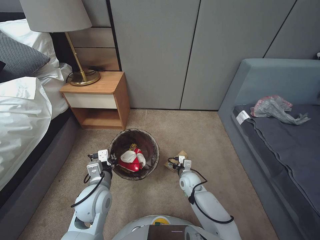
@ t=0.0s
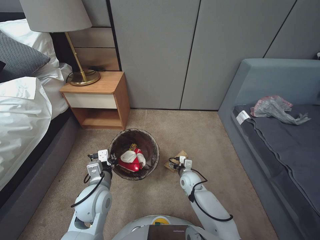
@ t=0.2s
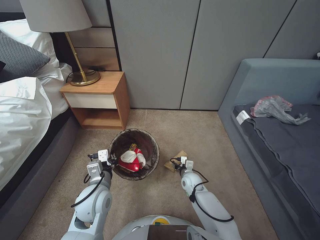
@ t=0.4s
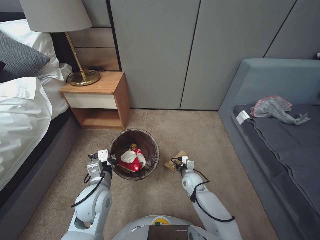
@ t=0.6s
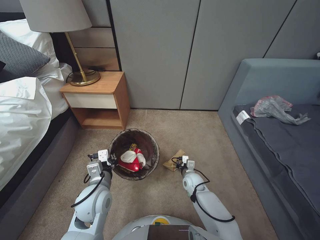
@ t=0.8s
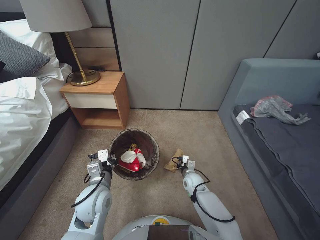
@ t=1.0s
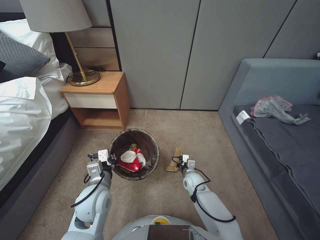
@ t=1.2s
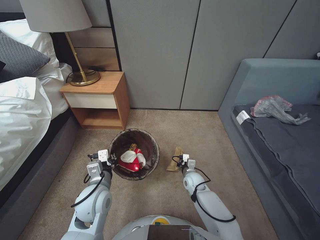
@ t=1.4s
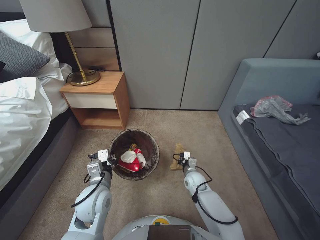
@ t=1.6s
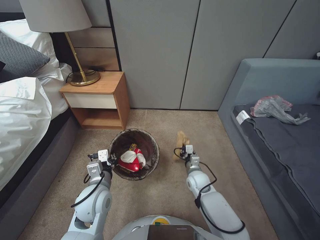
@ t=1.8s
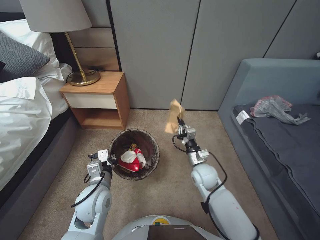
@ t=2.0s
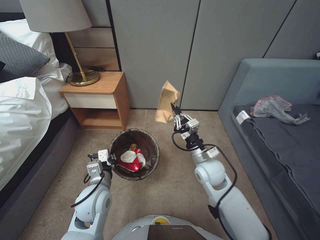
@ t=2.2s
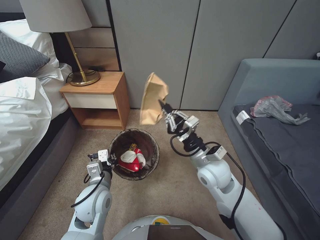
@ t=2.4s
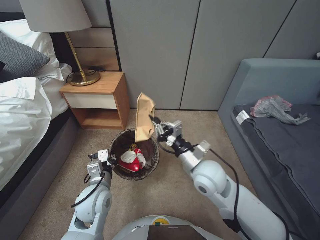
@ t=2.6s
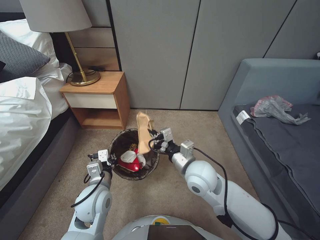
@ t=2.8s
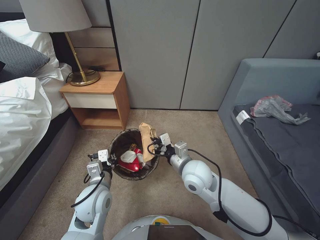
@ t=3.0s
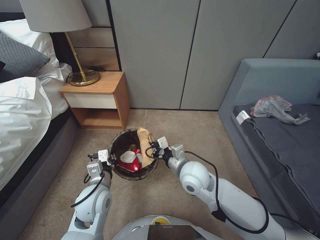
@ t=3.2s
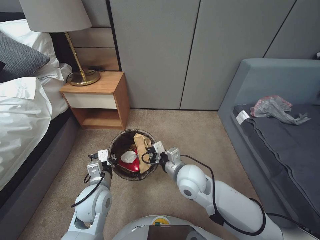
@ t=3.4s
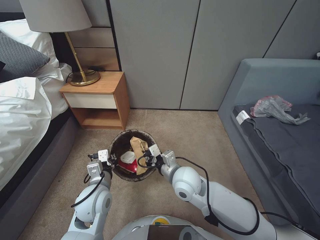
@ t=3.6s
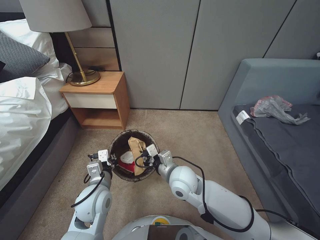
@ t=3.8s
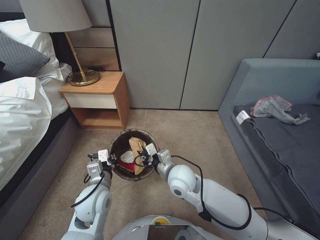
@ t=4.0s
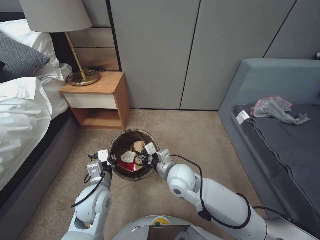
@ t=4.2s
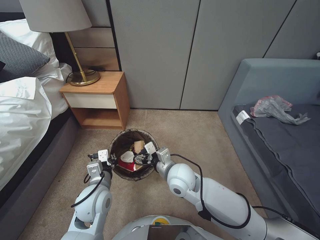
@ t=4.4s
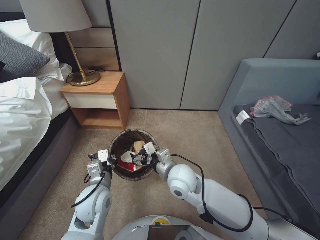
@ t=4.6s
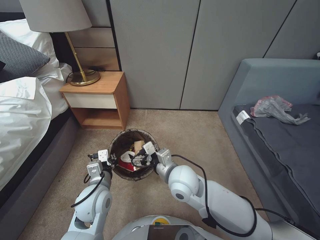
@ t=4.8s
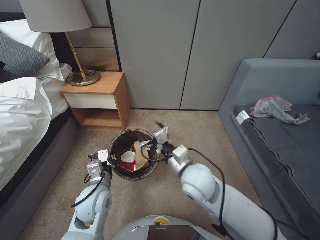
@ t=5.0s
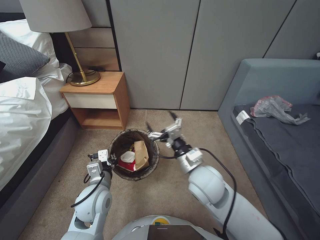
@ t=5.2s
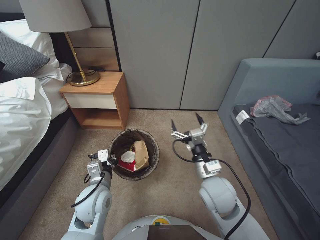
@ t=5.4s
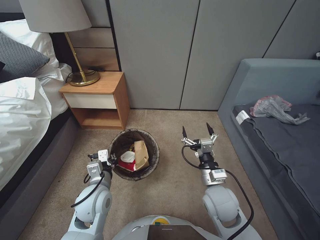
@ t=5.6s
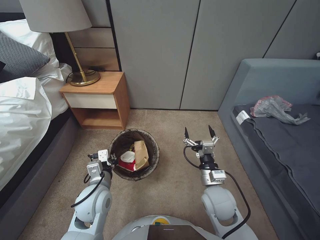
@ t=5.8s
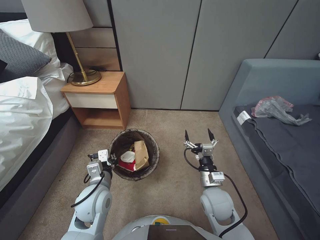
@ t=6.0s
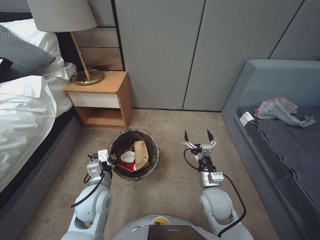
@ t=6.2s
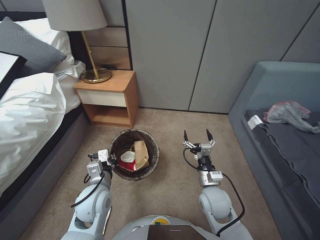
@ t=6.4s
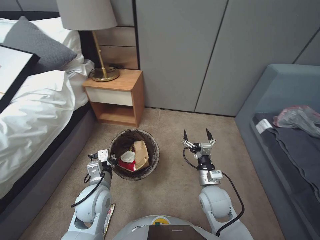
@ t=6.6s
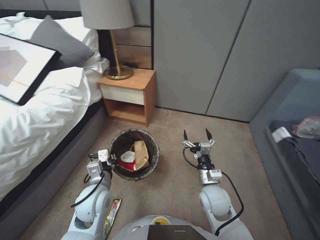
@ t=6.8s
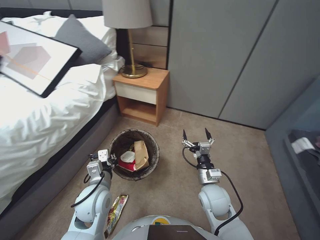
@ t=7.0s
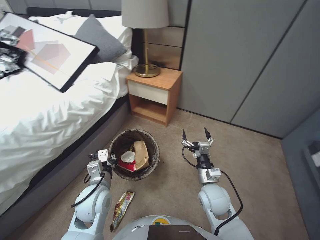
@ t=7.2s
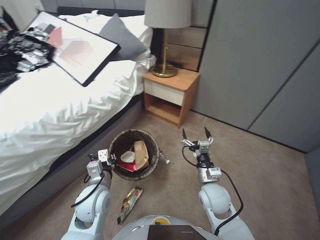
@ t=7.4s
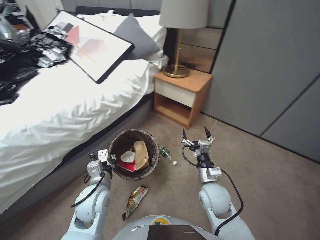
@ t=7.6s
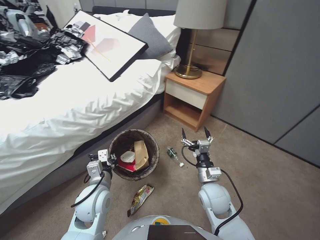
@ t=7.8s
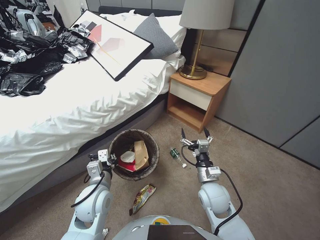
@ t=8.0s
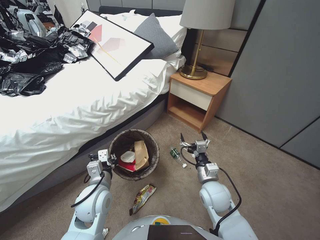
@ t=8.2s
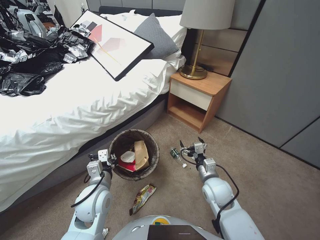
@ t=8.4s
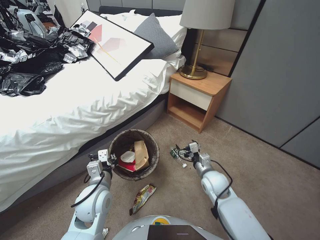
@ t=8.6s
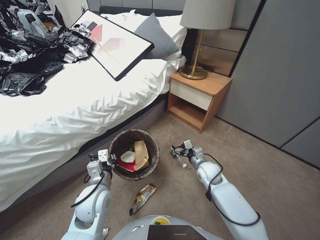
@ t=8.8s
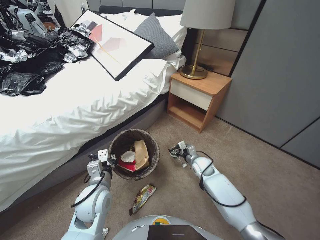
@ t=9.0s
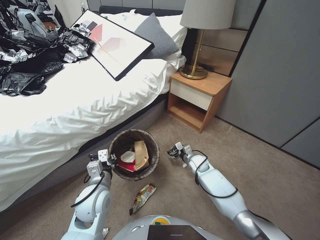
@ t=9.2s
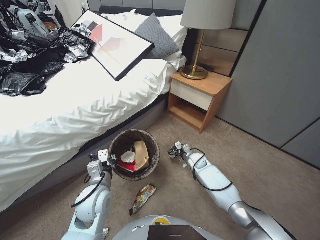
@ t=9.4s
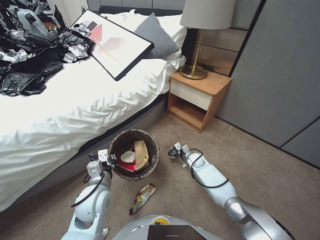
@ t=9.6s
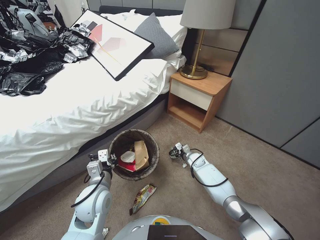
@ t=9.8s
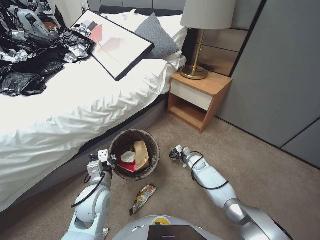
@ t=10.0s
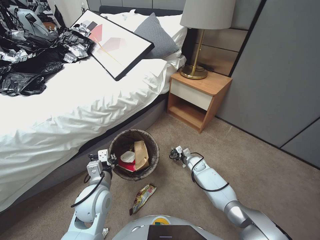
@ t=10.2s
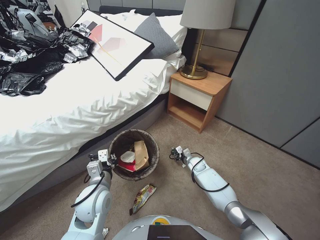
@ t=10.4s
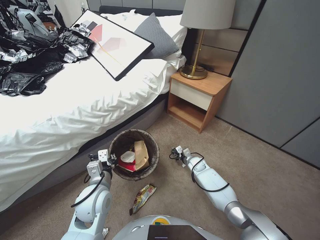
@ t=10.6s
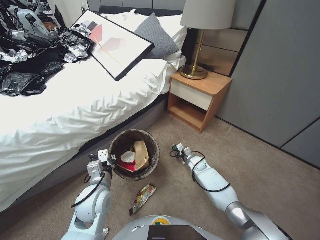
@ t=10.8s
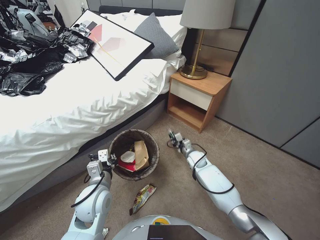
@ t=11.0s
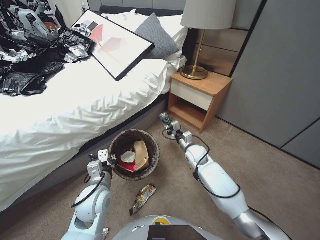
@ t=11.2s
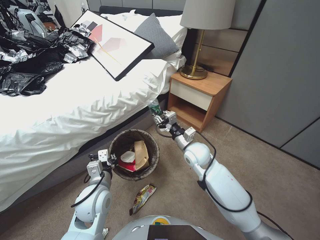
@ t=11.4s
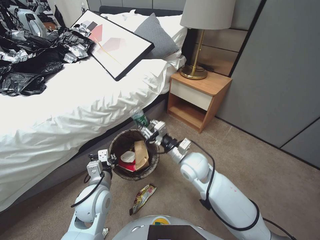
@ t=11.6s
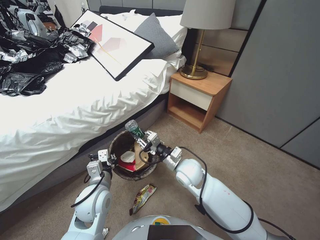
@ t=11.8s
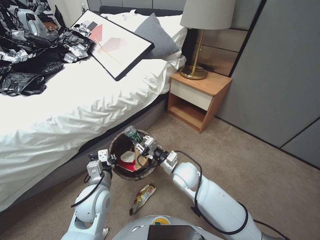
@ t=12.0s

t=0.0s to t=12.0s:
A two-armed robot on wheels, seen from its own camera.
Task of the whole recording: Pick up the trash bin, then pick up the garbage from the floor and place it into the trash bin.
t=0.0s to t=1.6s: The right gripper closes its fingers.
t=1.6s to t=3.0s: The right gripper is displaced upward by approximately 25 cm.
t=3.0s to t=4.4s: The right gripper moves some 5 cm, and opens up.
t=4.4s to t=6.0s: The right gripper heads to the right and backward, covering about 15 cm, and opens up.
t=7.6s to t=9.0s: The right gripper heads forward and downward, covering roughly 15 cm.
t=9.0s to t=10.4s: The right gripper goes some 10 cm downward and forward, and closes its fingers.
t=10.4s to t=12.0s: The right gripper is displaced upward, to the left and backward by approximately 25 cm.

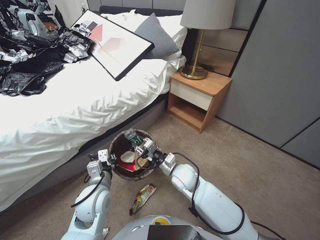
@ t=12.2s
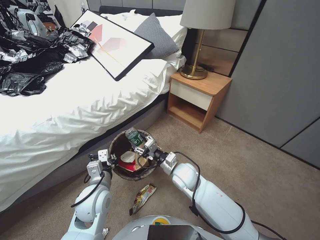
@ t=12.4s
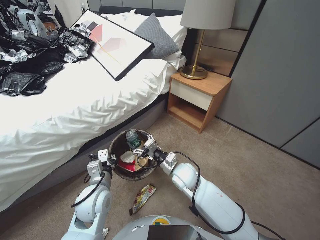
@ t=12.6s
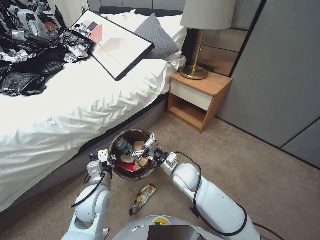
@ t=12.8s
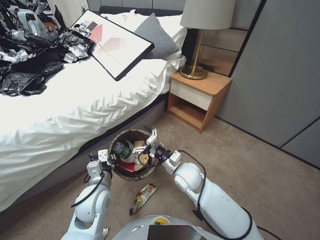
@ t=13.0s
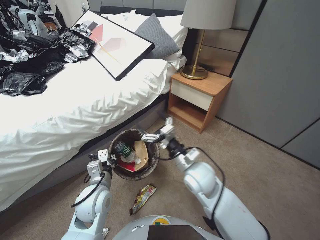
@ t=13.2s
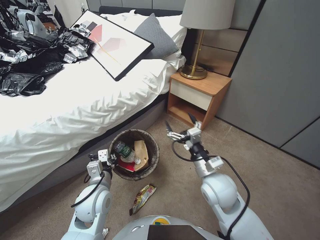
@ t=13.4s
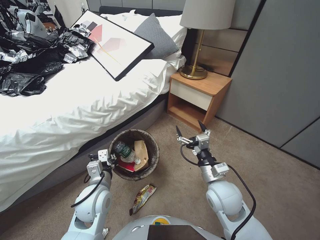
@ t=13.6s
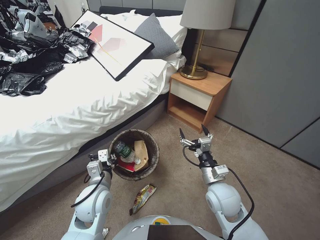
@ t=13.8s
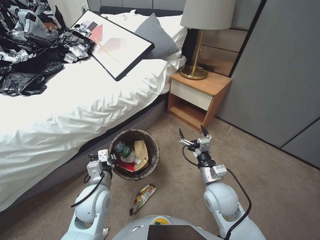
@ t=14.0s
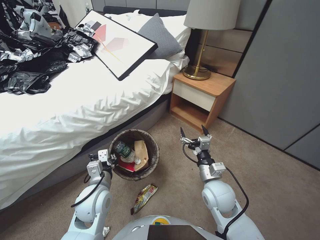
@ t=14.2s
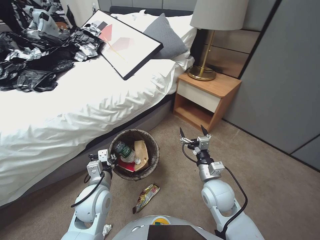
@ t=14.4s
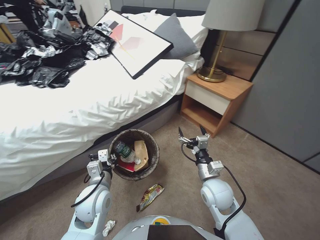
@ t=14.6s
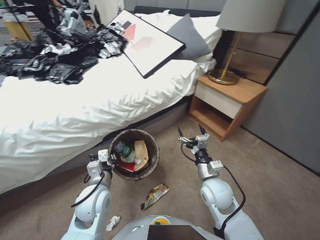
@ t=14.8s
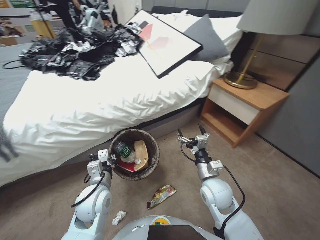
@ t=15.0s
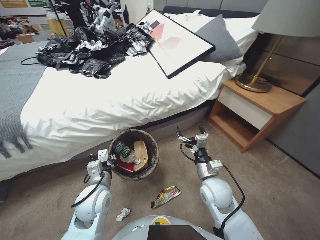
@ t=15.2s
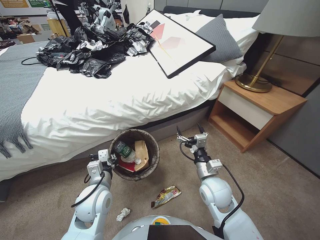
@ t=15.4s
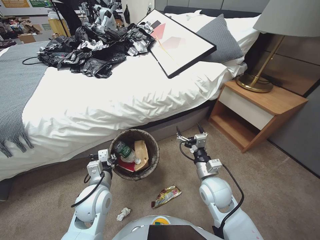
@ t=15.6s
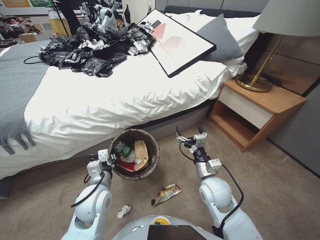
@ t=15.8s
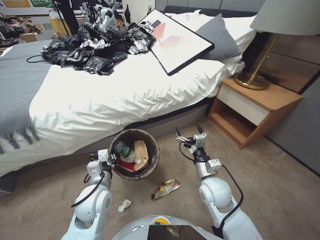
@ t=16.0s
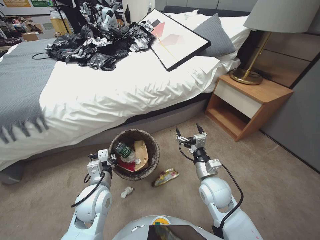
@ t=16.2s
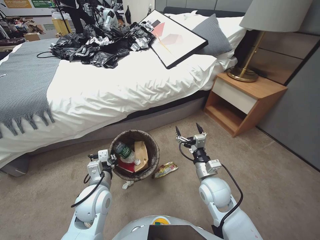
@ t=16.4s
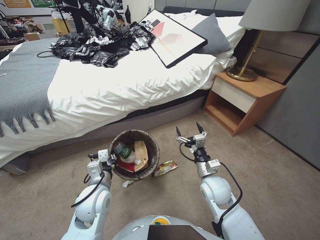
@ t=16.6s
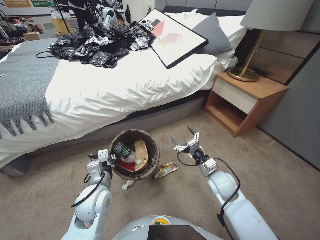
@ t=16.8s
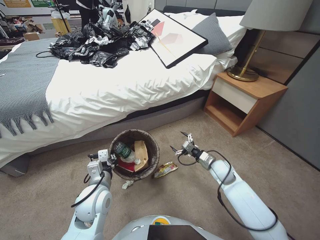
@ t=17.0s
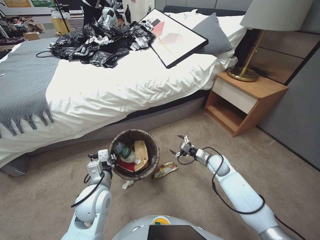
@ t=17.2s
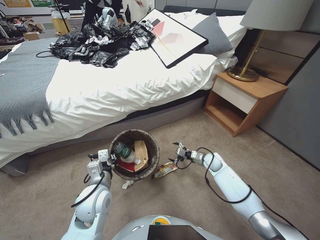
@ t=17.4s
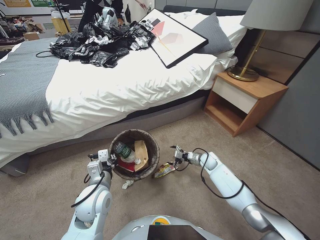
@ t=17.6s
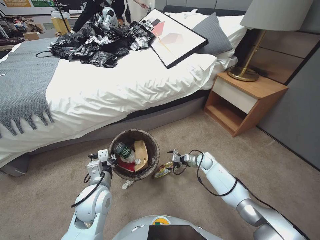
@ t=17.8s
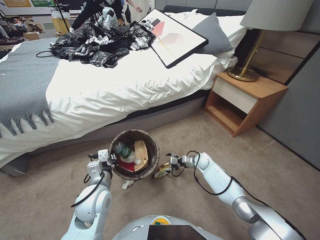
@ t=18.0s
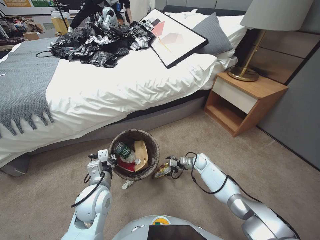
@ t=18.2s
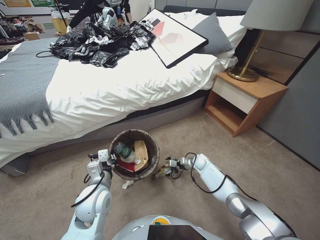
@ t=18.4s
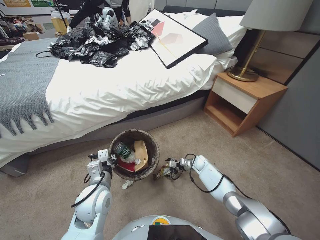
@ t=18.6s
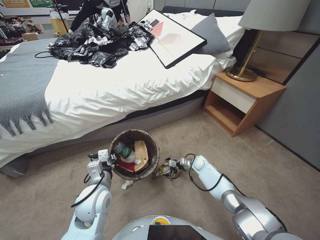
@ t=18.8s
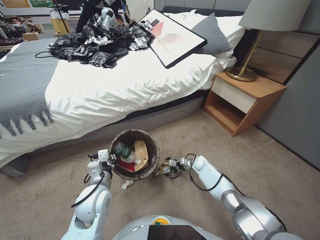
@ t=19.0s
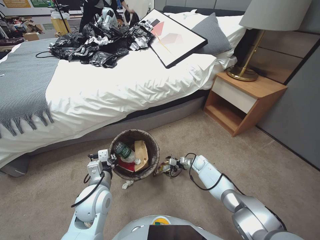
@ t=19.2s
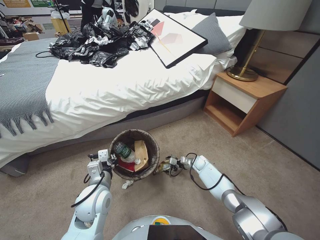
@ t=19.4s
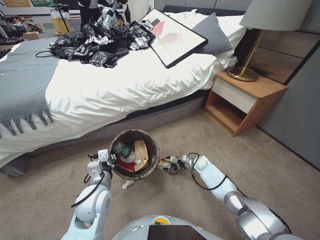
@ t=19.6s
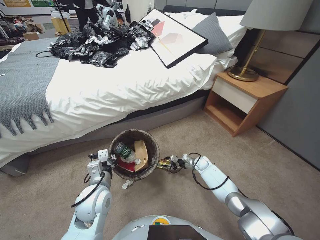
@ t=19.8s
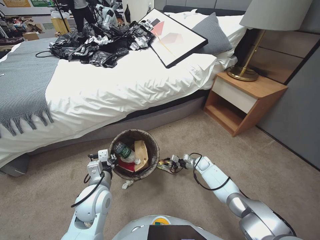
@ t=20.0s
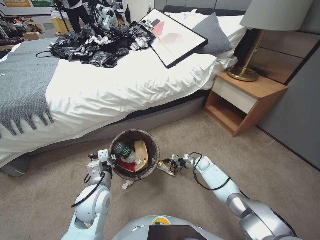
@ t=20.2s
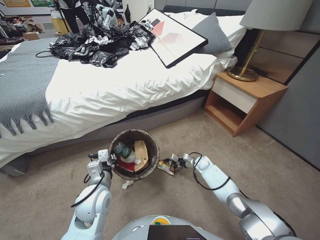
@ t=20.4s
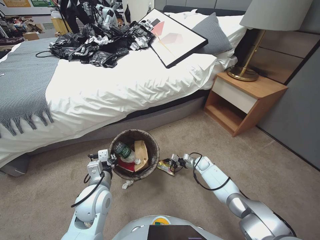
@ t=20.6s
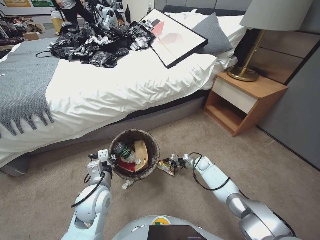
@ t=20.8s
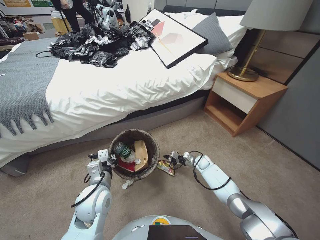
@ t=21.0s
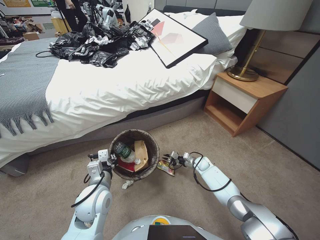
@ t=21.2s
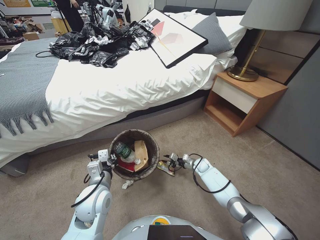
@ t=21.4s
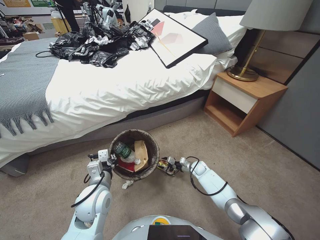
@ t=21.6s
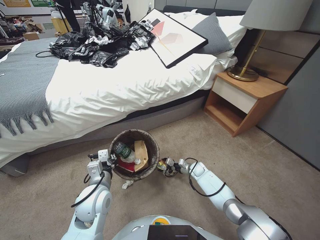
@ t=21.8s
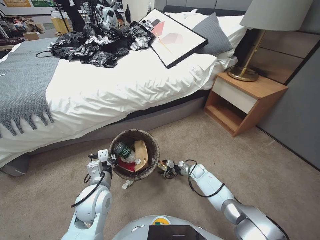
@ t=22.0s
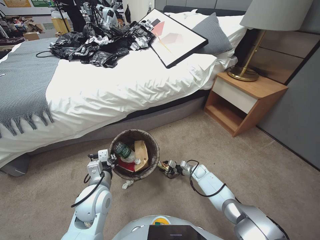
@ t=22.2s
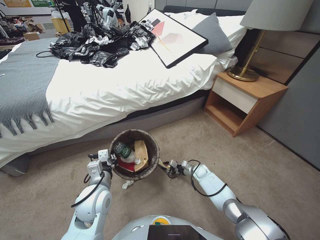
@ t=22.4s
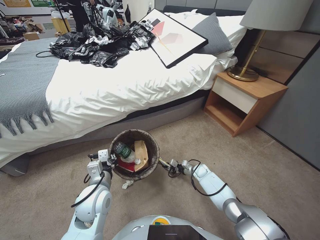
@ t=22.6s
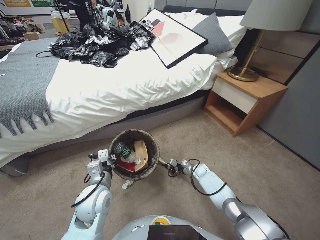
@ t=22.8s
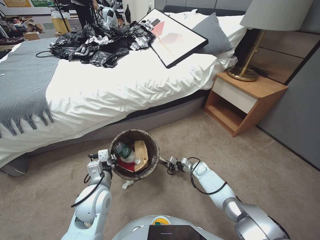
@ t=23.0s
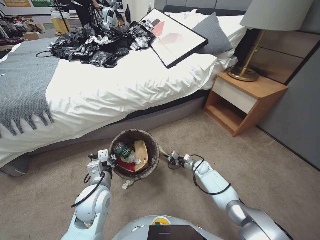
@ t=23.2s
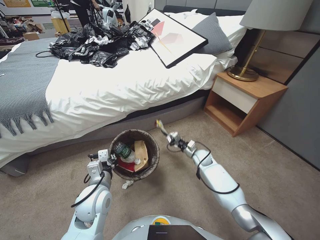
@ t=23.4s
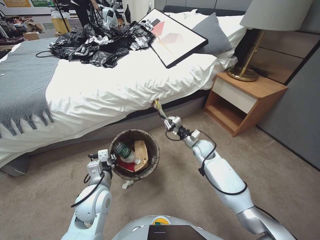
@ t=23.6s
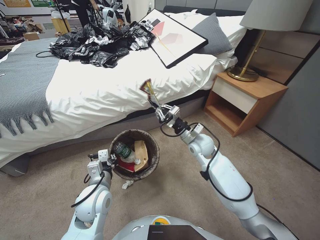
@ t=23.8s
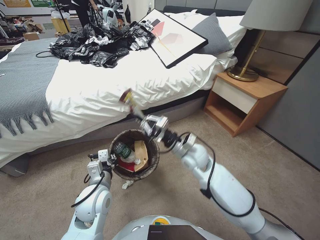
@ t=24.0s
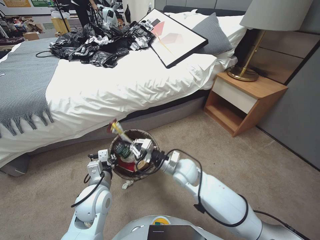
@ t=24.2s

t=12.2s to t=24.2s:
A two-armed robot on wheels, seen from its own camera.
Task of the whole recording: Pick up the trash bin, then pick up the garbage from the floor and place it into the trash bin.
t=12.2s to t=13.8s: The right gripper heads to the right, backward and upward, covering some 15 cm, and opens its fingers.
t=16.6s to t=18.2s: The right gripper is displaced forward and downward by approximately 25 cm.
t=18.2s to t=19.8s: The right gripper closes up.
t=19.8s to t=21.2s: The right gripper closes up.
t=21.2s to t=22.6s: The right gripper moves roughly 5 cm, and opens and closes again.
t=22.6s to t=24.2s: The right gripper moves upward and to the left, some 35 cm.
